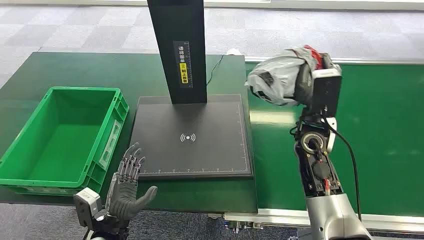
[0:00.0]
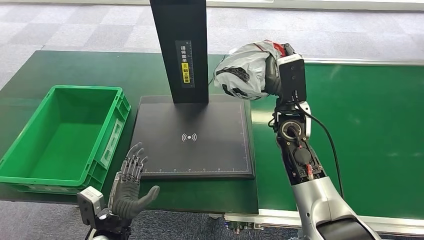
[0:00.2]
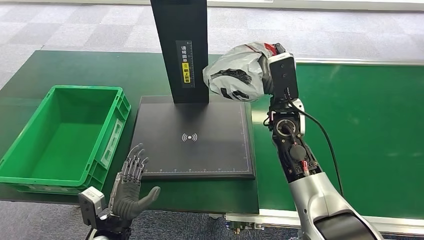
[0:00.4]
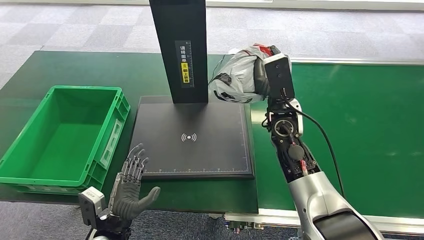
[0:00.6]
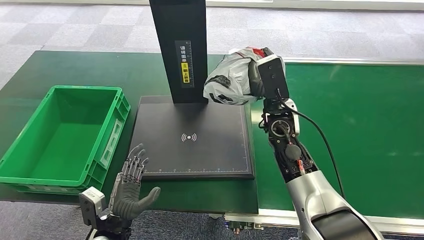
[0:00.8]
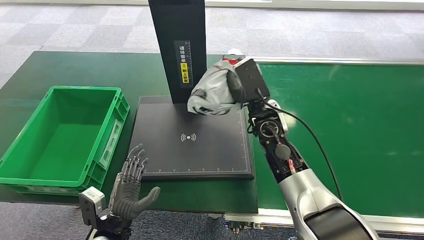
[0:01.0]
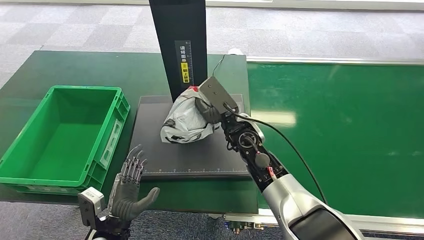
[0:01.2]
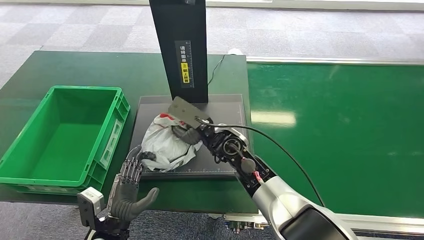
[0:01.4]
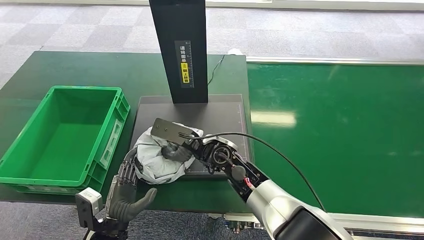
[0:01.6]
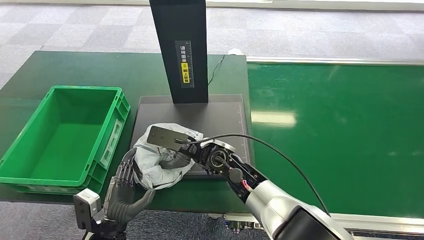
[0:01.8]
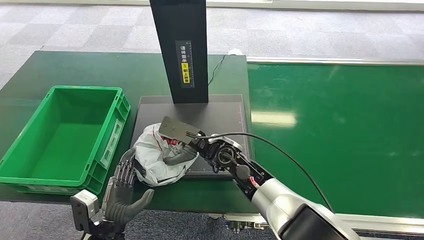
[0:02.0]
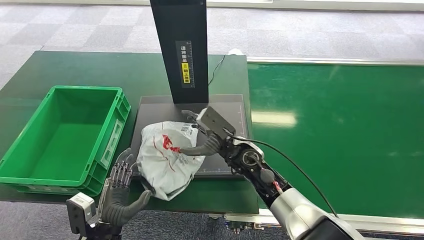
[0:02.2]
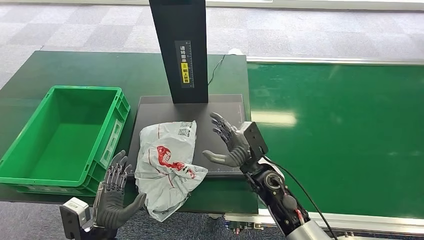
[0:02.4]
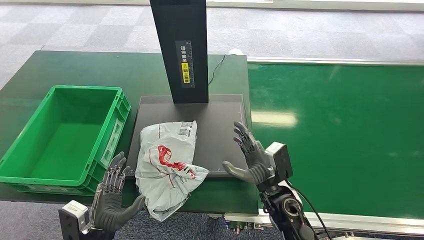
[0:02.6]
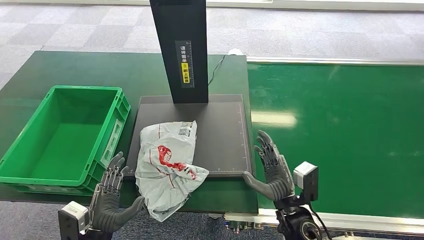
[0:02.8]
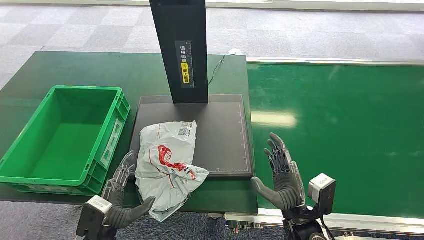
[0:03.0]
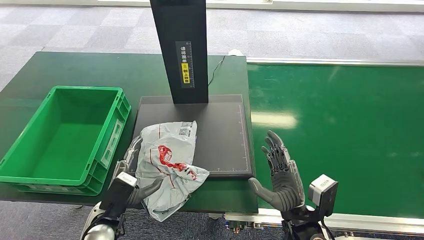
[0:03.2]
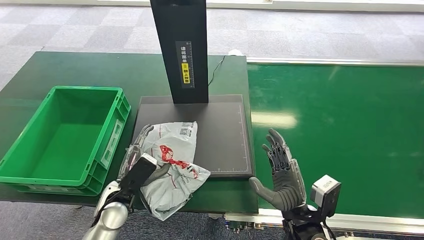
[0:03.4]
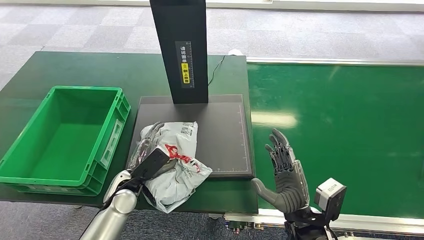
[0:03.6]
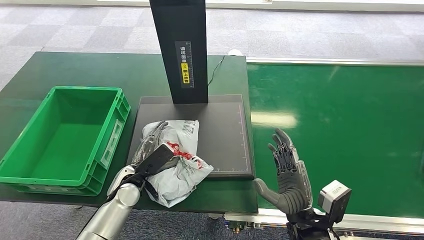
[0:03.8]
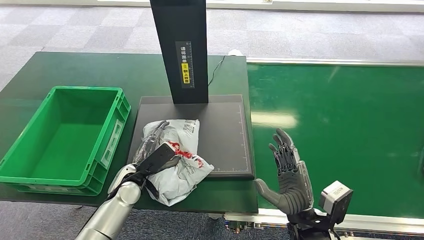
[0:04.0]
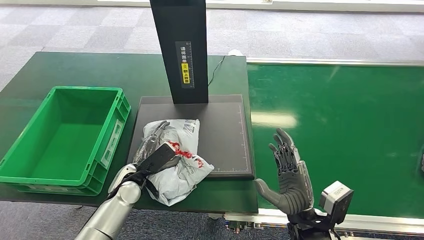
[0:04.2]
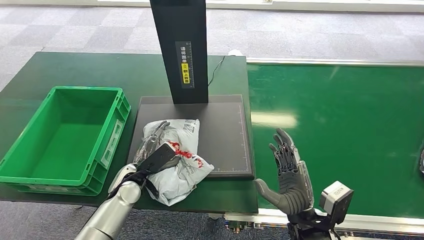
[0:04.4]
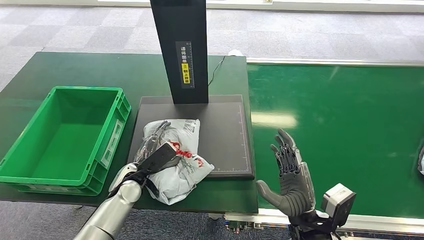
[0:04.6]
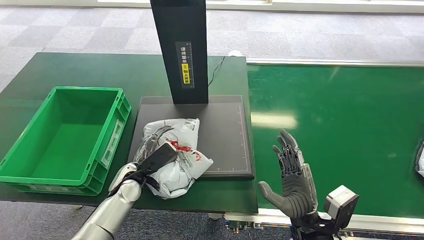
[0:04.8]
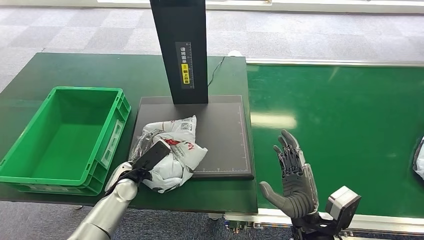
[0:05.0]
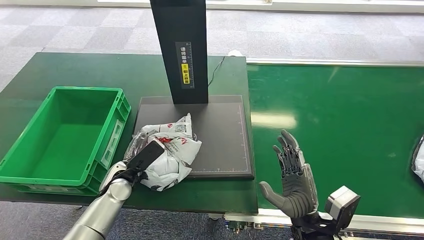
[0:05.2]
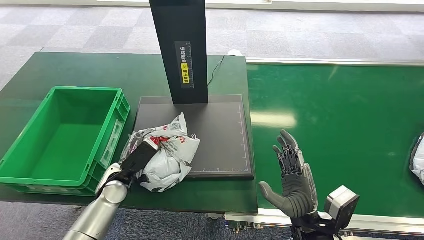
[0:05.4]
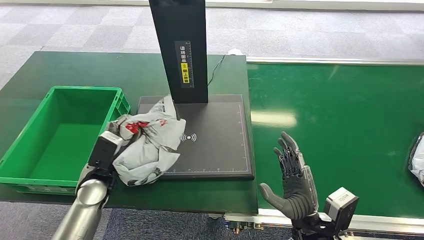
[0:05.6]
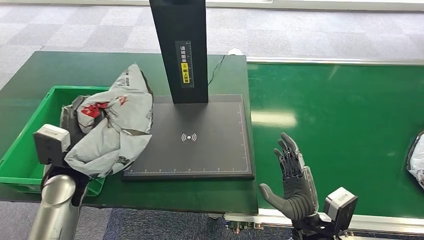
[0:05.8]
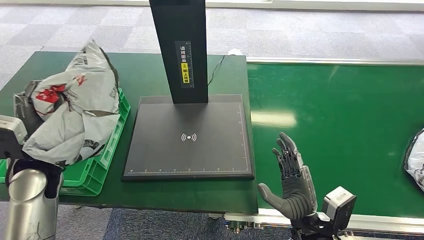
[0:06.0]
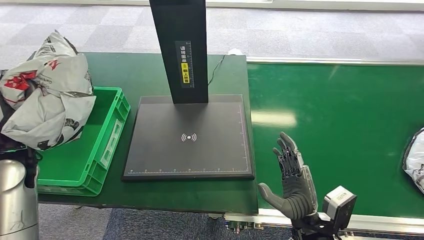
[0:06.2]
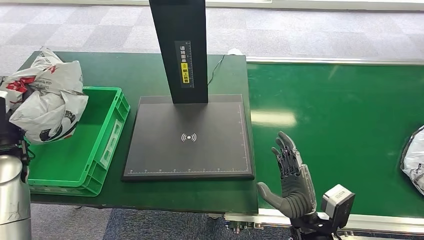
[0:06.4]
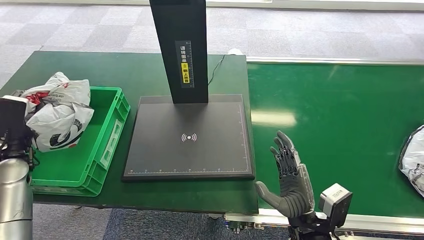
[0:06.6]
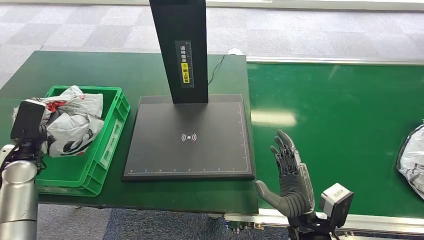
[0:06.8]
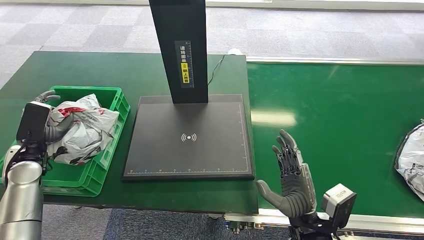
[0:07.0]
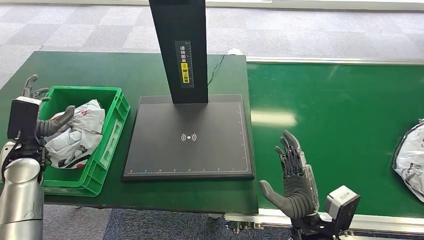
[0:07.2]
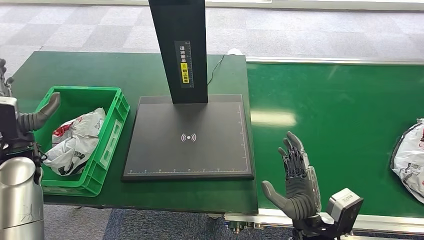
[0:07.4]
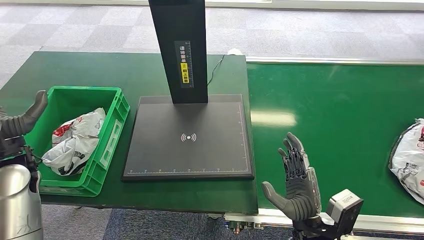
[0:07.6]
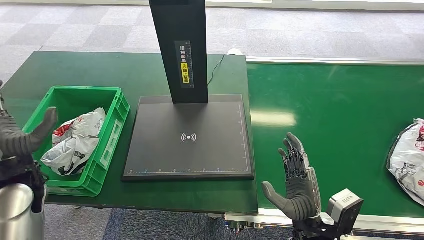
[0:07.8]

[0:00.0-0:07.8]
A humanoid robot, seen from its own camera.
Step, 0:00.0 to 0:00.2: Pick up the package from the conveyor belt.
Step, 0:03.0 to 0:03.2: Place the package onto the inbound machine.
0:01.6 to 0:03.2: The right hand shifts approximately 25 cm backward and to the right.
0:03.2 to 0:04.6: The left hand is displaced forward by some 10 cm.
0:06.2 to 0:07.8: The left hand goes to the left and returns, some 5 cm each way.
